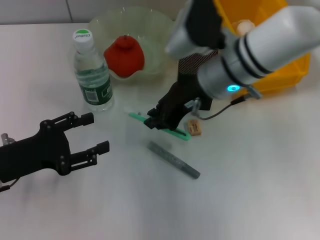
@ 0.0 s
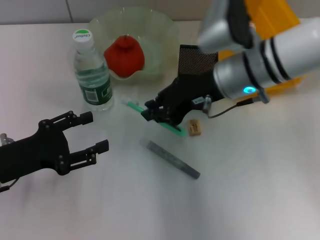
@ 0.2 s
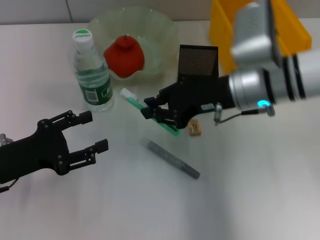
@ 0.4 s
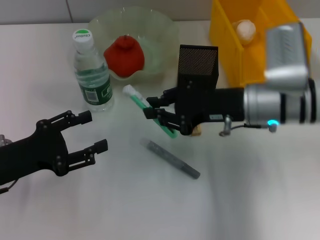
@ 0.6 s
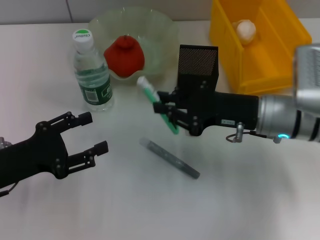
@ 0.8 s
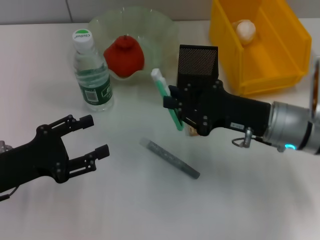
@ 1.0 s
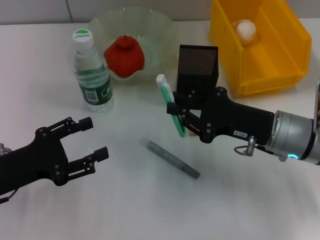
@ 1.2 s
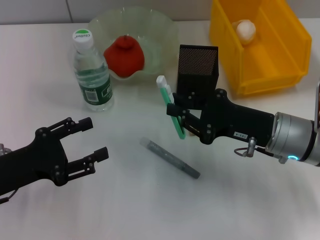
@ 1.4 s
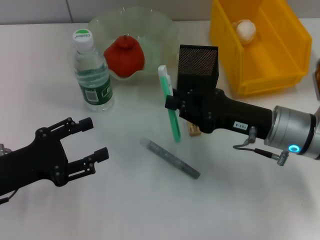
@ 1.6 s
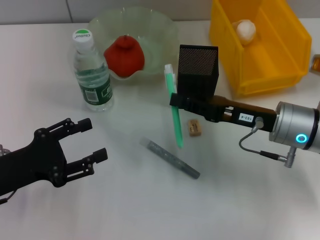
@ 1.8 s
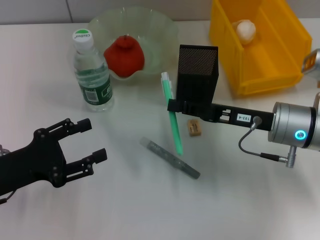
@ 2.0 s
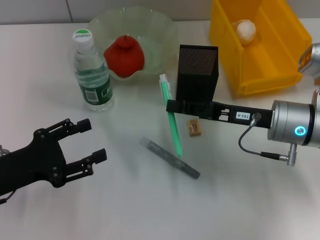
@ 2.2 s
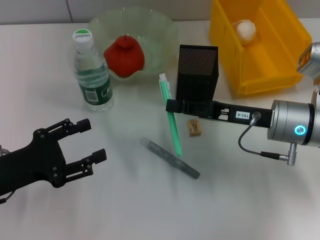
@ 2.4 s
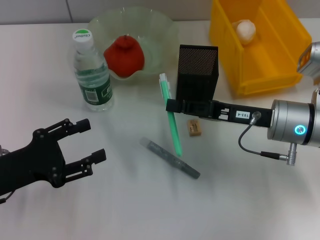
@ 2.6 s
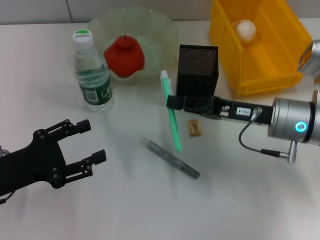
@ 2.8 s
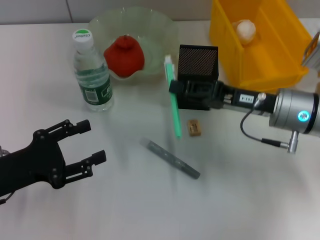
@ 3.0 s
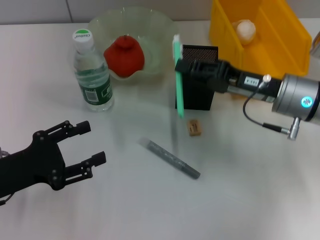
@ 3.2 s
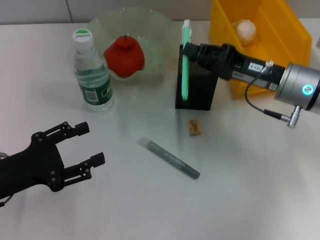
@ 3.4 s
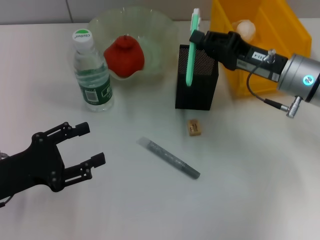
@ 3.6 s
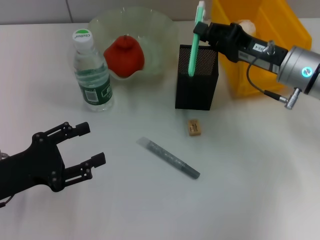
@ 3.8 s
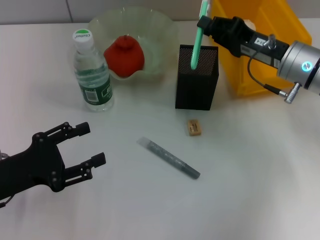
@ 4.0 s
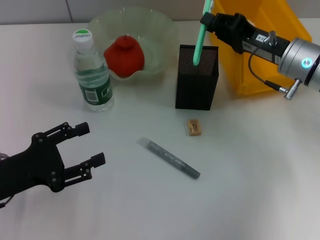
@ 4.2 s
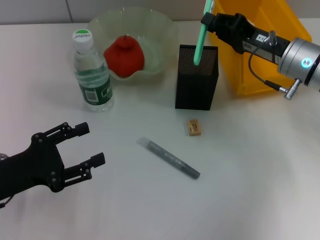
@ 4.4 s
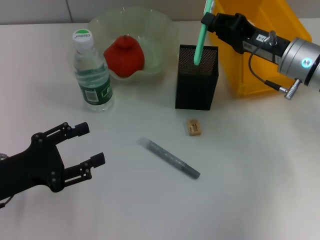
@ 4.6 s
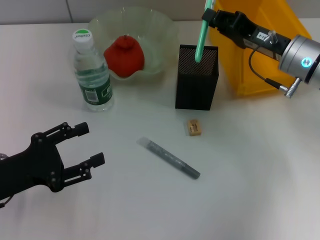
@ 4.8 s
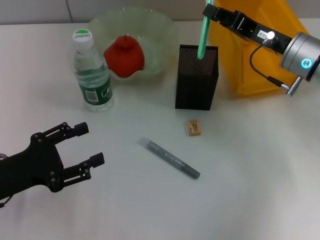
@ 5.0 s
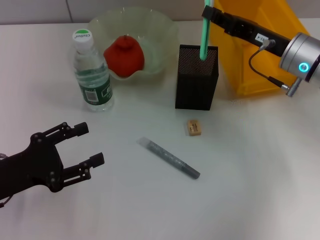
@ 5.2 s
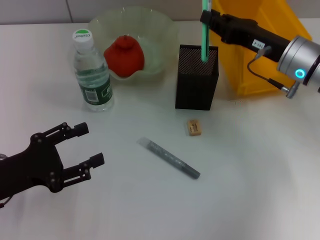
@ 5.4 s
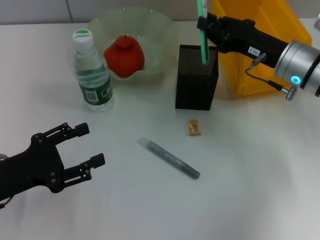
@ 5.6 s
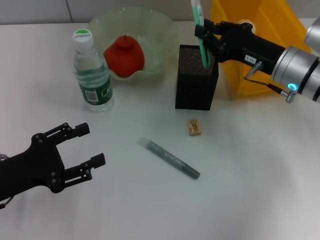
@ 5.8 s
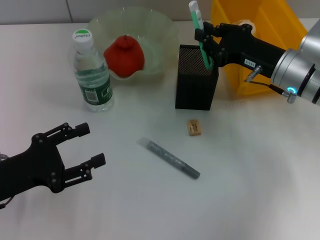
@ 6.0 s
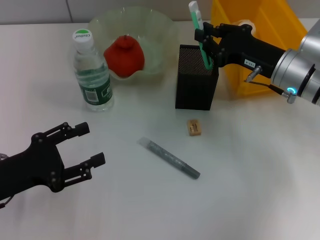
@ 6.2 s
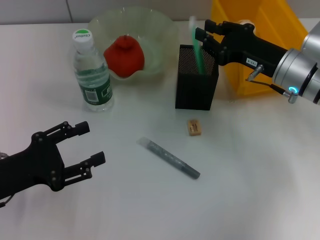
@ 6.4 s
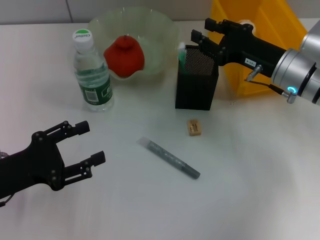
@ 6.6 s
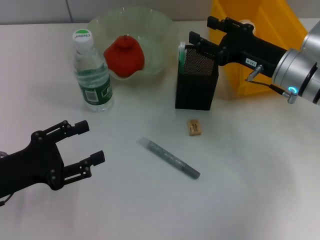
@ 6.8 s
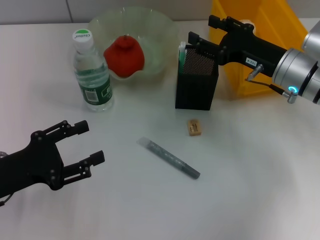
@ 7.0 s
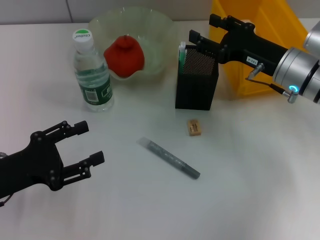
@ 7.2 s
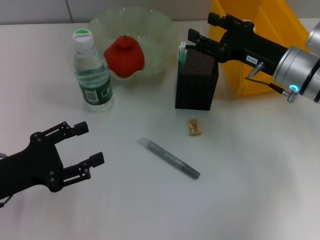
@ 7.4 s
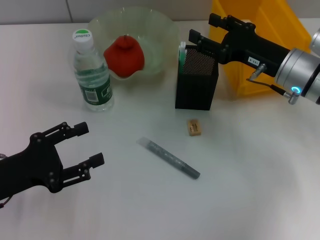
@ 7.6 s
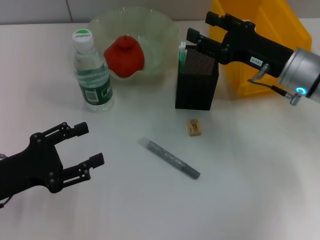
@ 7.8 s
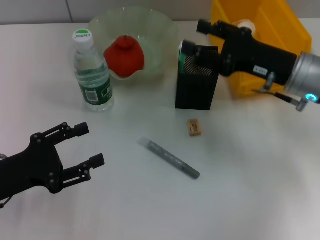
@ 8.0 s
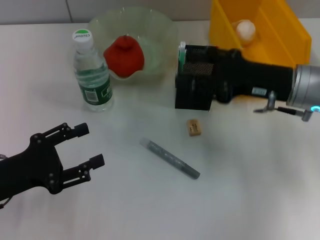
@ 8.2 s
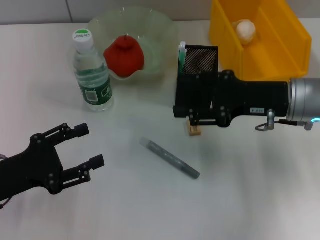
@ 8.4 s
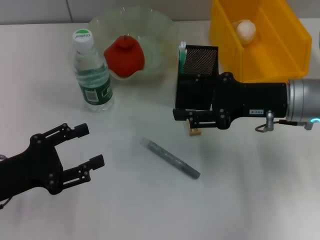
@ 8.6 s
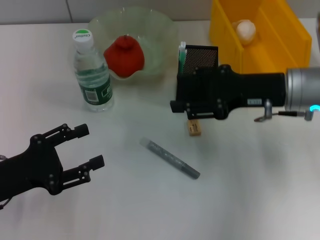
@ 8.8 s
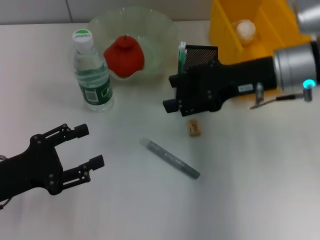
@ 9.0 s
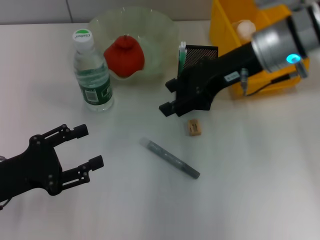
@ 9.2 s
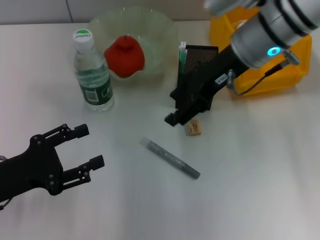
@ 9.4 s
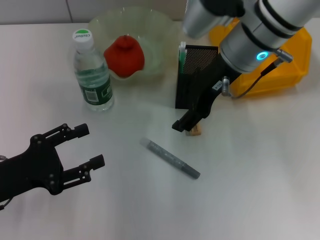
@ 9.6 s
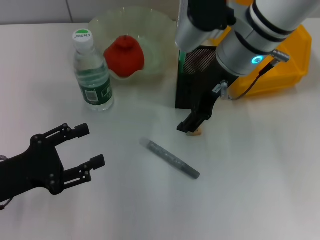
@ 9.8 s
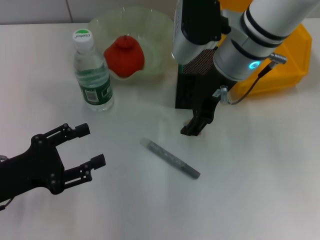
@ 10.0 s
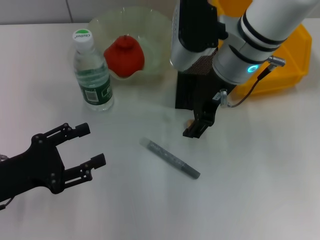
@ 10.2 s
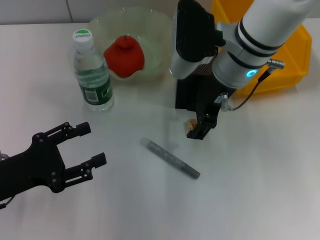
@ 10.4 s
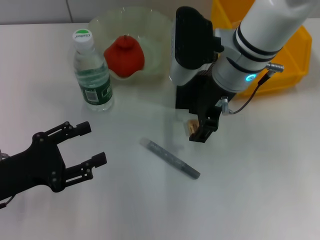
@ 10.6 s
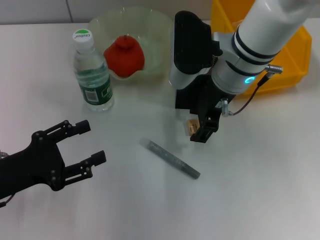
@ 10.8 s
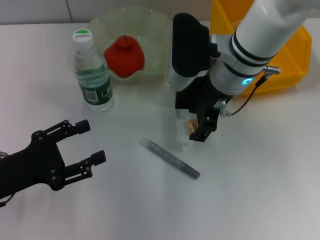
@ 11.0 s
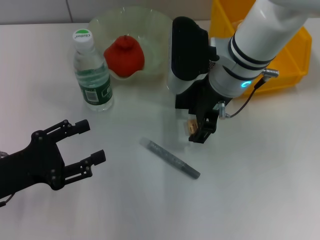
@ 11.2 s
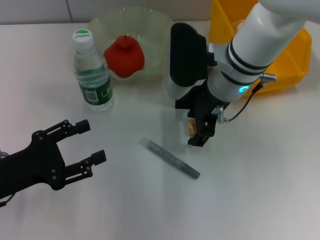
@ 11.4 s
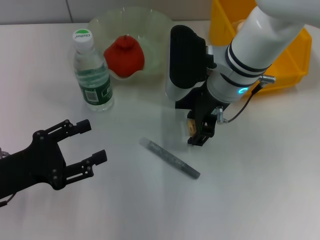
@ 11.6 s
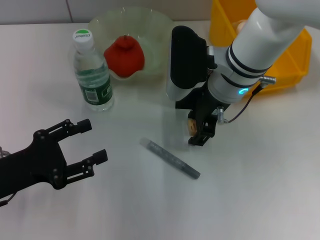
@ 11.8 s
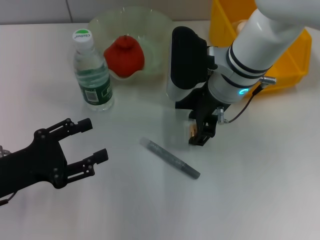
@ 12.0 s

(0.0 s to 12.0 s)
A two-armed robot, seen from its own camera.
Step, 0.0 s - 6.6 s: Place the blue utility knife into the pen holder with the right hand.
0.0 s - 1.6 s: The right gripper goes approximately 15 cm to the right, downward and backward.
3.0 s - 4.4 s: The right gripper heads forward, covering roughly 5 cm.
6.0 s - 7.6 s: The right gripper opens its fingers.
7.6 s - 9.0 s: The right gripper heads upward, covering approximately 5 cm.
9.0 s - 10.4 s: The right gripper travels to the left by some 10 cm.
10.4 s - 12.0 s: The grippers move only a little.

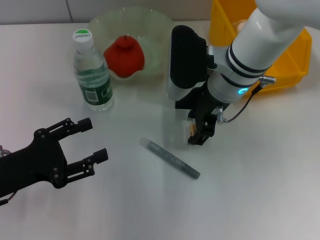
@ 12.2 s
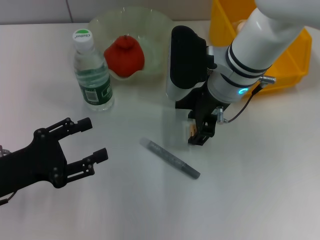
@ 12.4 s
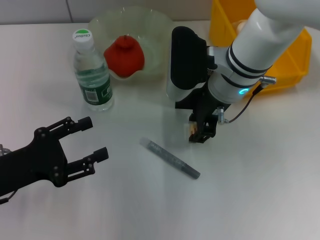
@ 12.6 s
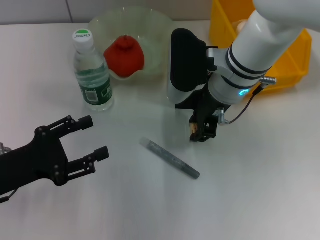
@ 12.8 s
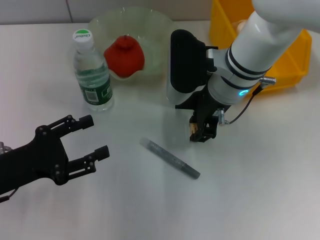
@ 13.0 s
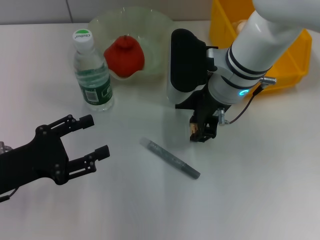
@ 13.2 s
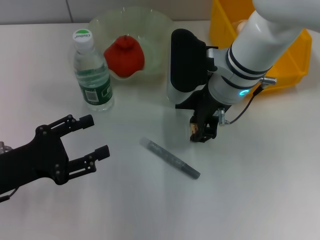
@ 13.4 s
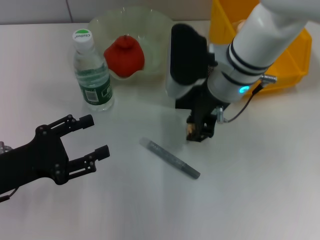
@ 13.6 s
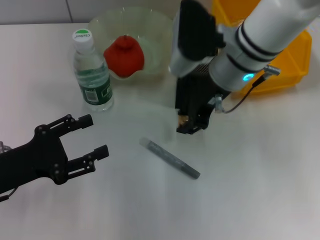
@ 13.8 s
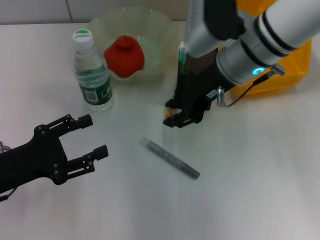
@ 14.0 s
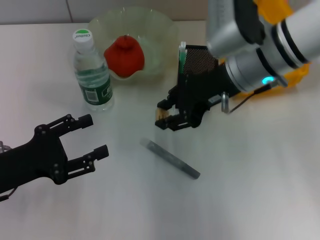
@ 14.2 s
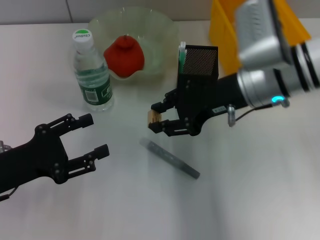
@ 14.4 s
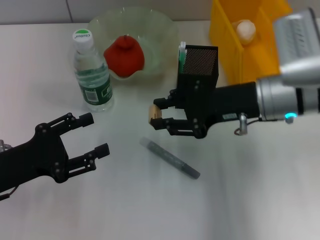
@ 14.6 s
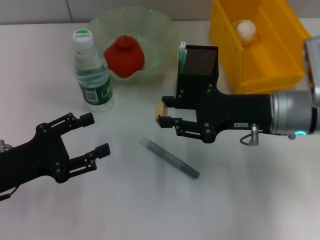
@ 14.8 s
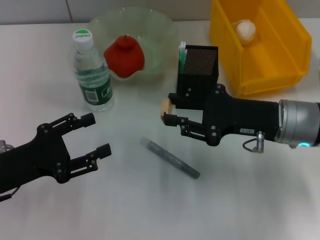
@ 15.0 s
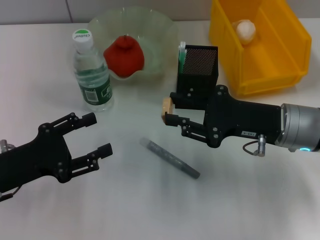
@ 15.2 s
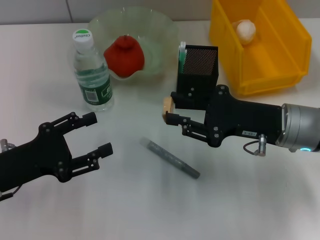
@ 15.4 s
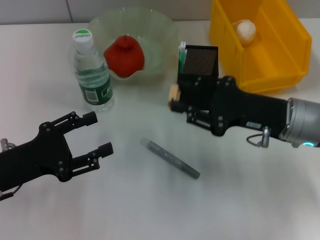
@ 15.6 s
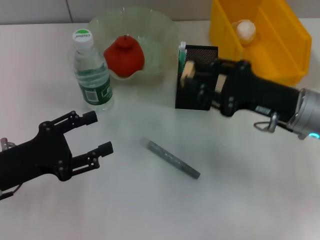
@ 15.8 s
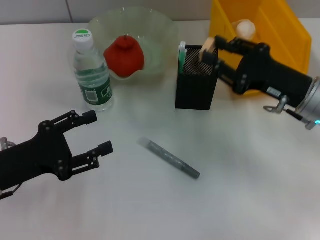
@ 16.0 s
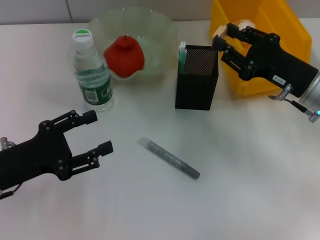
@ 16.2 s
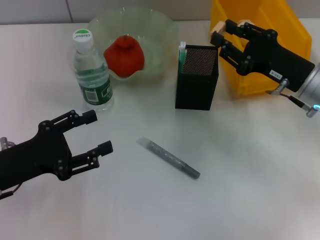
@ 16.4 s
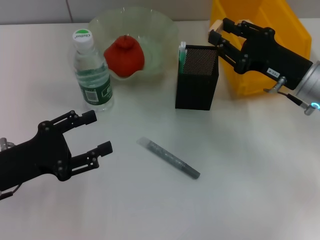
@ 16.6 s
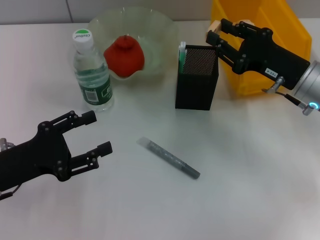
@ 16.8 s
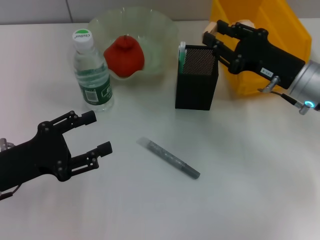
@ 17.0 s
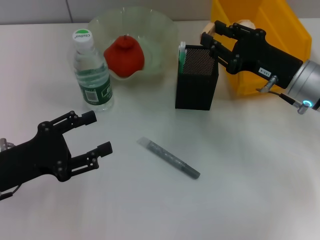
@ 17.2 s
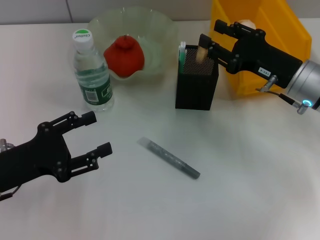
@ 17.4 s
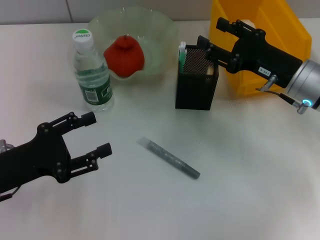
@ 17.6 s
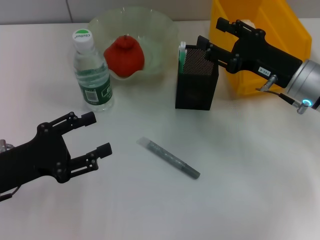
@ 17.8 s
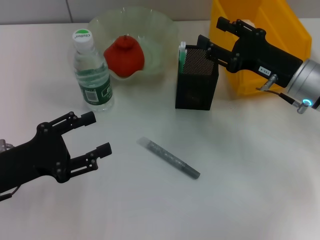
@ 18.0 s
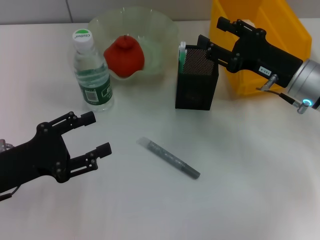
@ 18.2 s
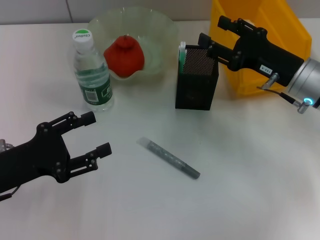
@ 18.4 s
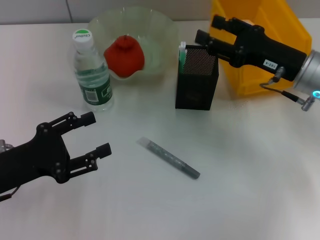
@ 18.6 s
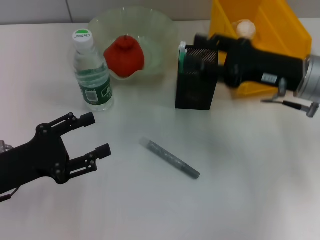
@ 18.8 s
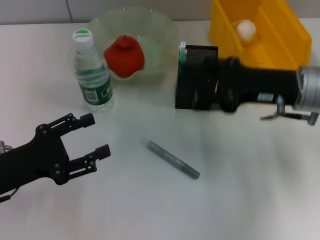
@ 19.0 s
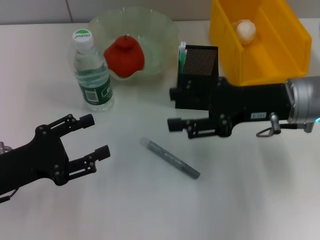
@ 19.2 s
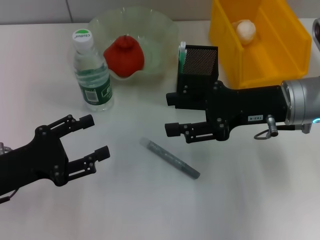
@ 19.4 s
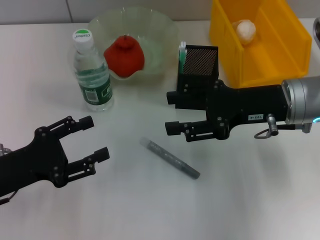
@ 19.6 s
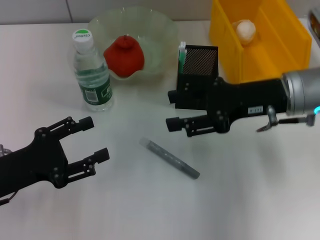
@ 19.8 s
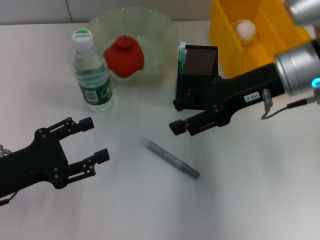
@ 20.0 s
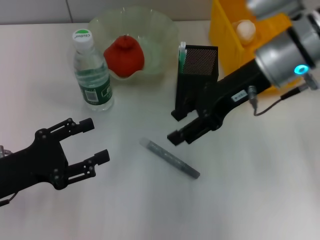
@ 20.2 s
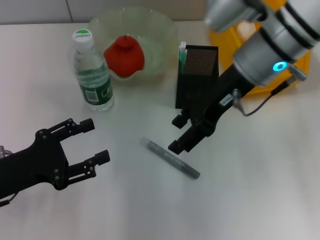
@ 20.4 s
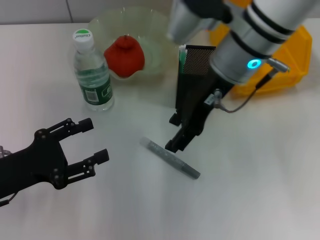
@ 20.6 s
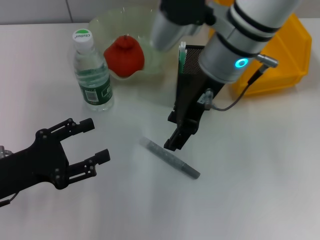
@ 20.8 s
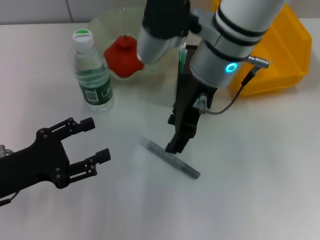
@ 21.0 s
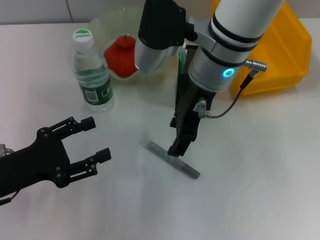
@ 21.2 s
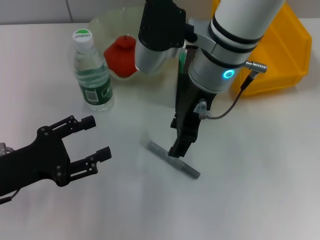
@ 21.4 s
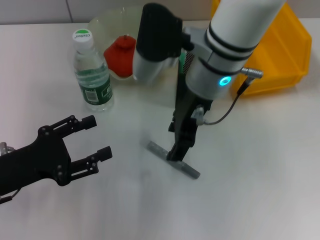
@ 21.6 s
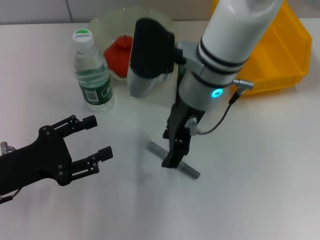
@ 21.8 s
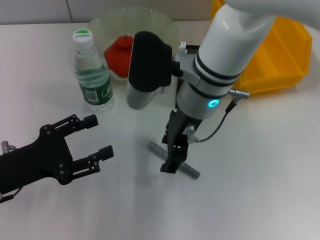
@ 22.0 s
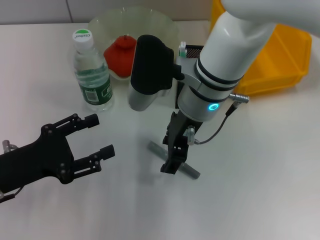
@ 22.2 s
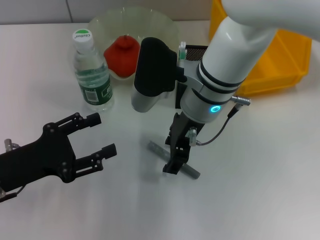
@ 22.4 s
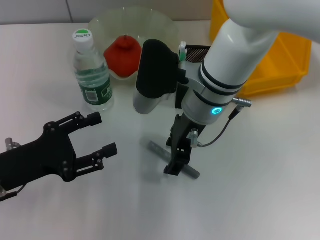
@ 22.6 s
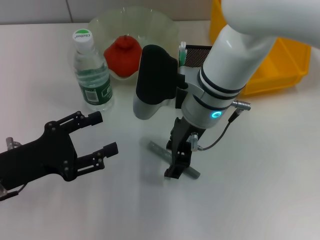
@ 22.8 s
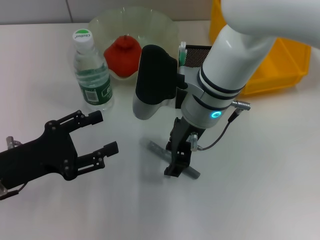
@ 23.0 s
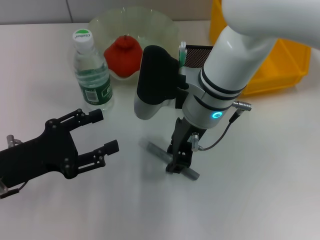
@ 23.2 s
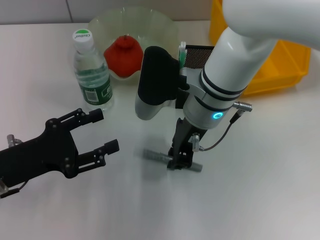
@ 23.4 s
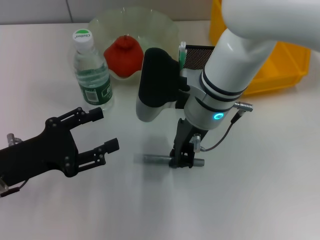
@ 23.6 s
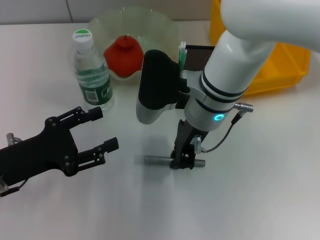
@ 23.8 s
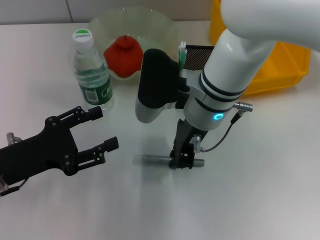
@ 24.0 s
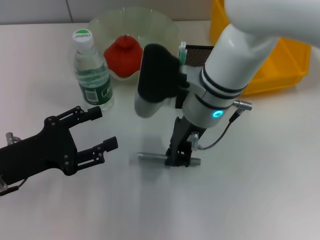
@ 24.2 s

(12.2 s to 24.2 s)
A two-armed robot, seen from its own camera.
Step, 12.8 s - 18.2 s: Put the eraser into the pen holder with the right hand.
Step, 18.4 s - 23.4 s: Grab the gray glue with the right hand.
12.2 s - 13.8 s: The right gripper closes.
13.8 s - 15.2 s: The right gripper is displaced to the right, backward and downward by some 15 cm.
15.2 s - 16.6 s: The right gripper changes place by approximately 5 cm.
16.6 s - 18.2 s: Neither gripper changes place.
18.2 s - 19.8 s: The right gripper heads upward, covering some 5 cm.
19.8 s - 21.2 s: The right gripper shifts about 15 cm to the left.
21.2 s - 22.6 s: The right gripper shifts some 5 cm downward.
22.6 s - 24.2 s: The right gripper closes up.
